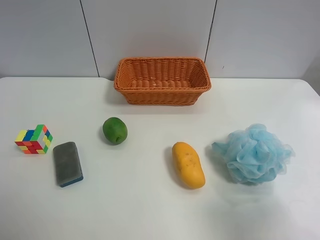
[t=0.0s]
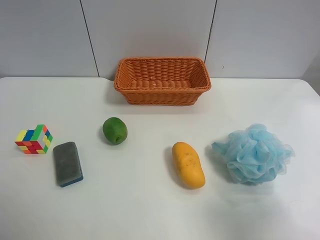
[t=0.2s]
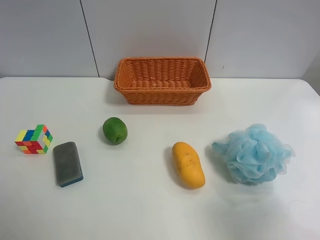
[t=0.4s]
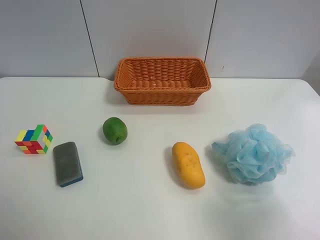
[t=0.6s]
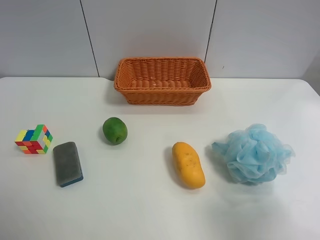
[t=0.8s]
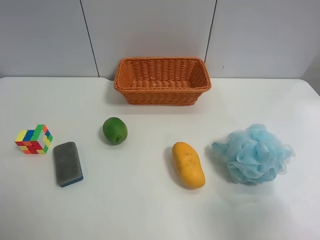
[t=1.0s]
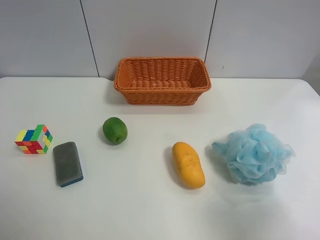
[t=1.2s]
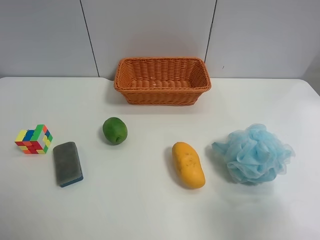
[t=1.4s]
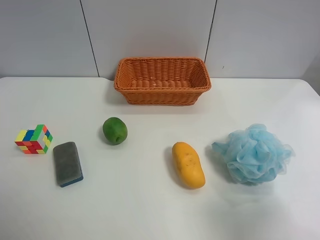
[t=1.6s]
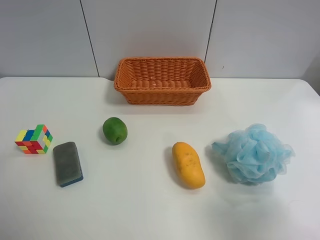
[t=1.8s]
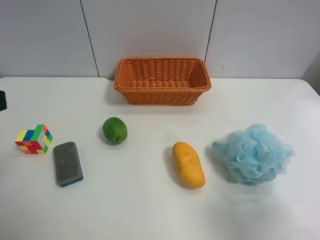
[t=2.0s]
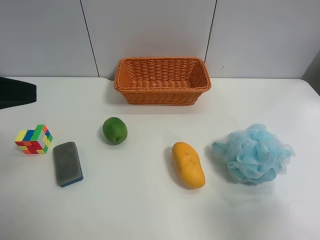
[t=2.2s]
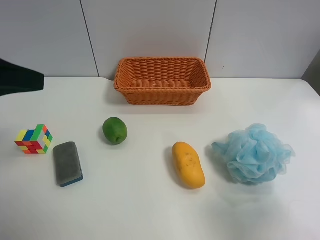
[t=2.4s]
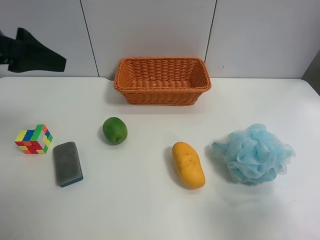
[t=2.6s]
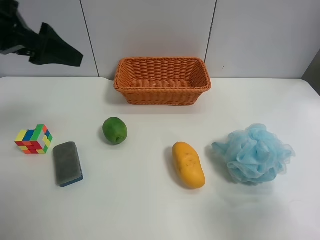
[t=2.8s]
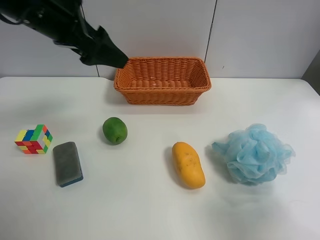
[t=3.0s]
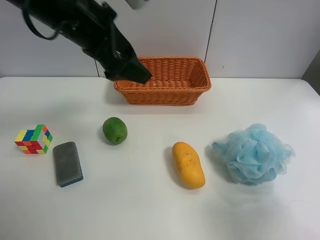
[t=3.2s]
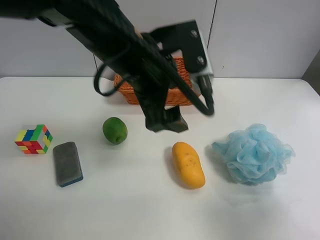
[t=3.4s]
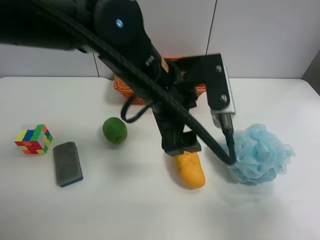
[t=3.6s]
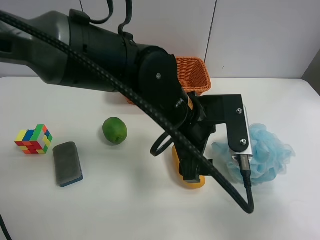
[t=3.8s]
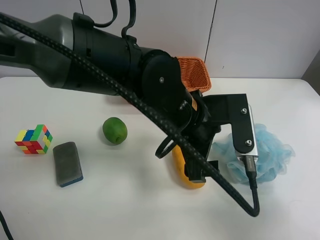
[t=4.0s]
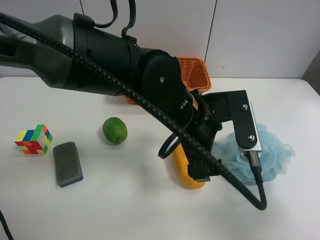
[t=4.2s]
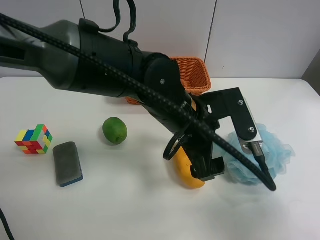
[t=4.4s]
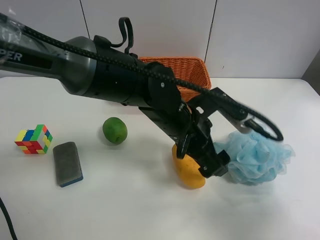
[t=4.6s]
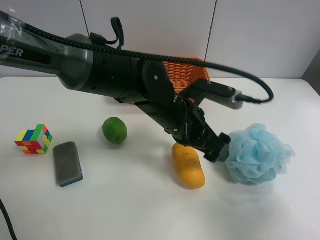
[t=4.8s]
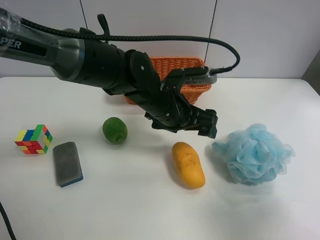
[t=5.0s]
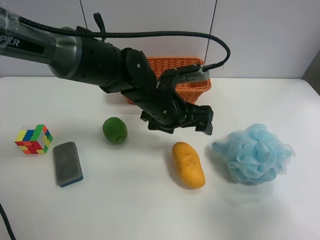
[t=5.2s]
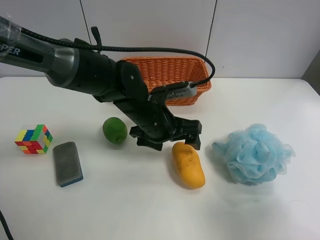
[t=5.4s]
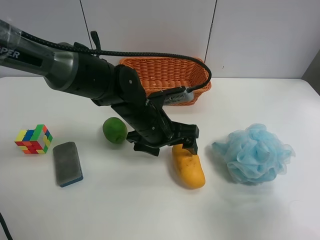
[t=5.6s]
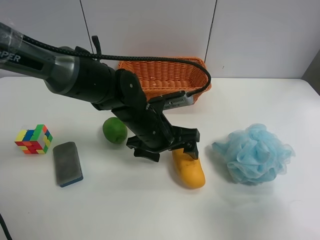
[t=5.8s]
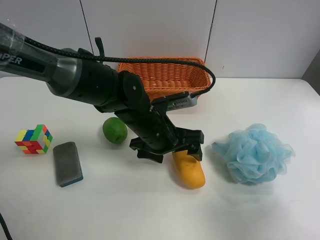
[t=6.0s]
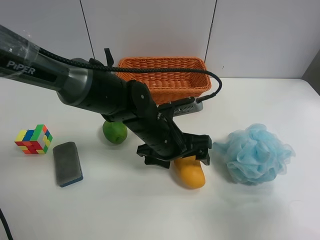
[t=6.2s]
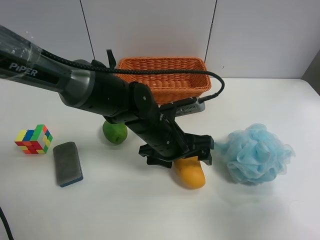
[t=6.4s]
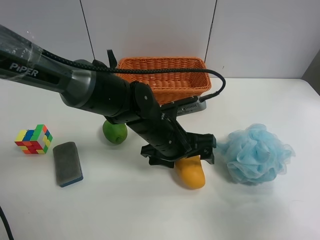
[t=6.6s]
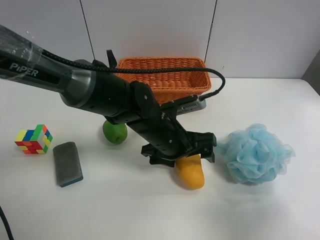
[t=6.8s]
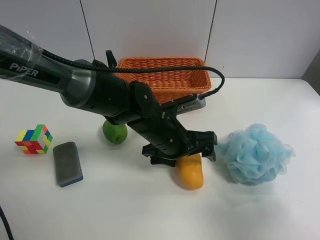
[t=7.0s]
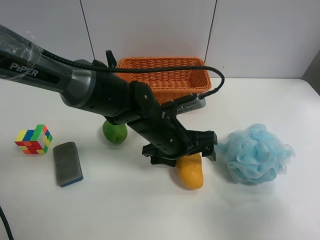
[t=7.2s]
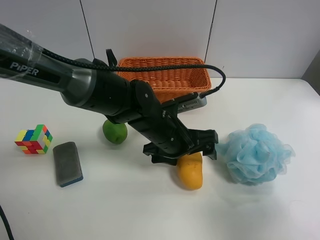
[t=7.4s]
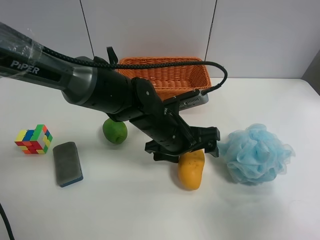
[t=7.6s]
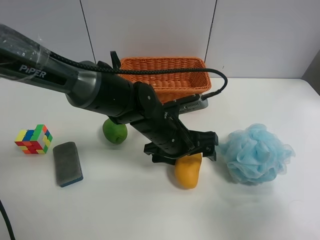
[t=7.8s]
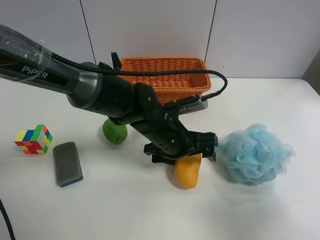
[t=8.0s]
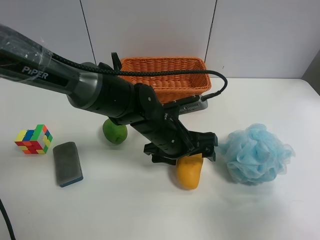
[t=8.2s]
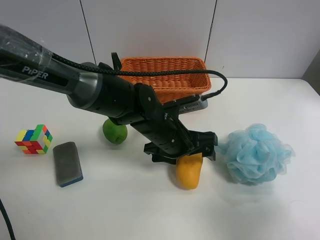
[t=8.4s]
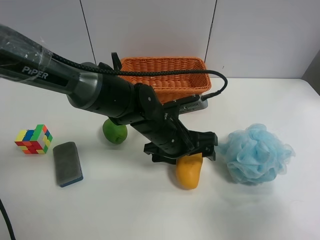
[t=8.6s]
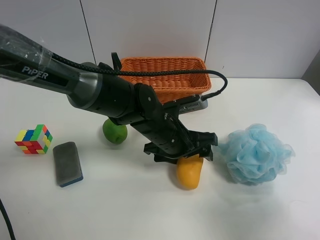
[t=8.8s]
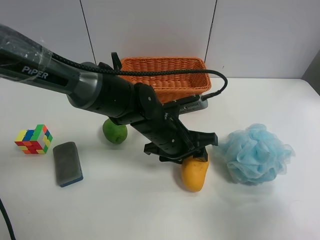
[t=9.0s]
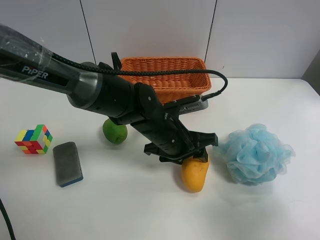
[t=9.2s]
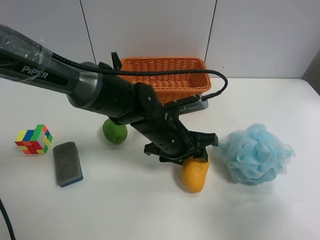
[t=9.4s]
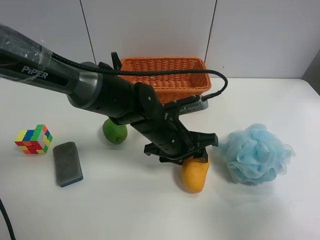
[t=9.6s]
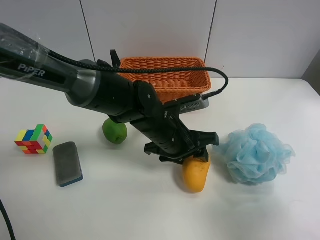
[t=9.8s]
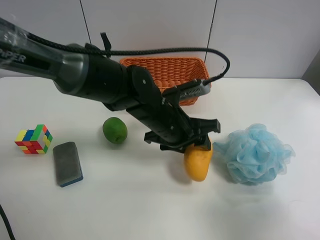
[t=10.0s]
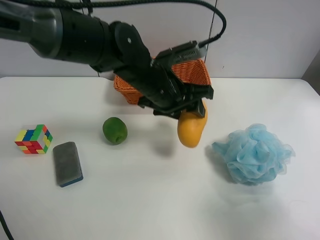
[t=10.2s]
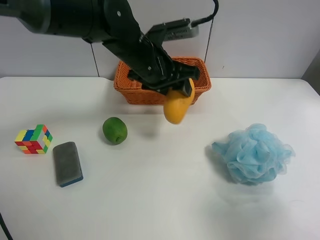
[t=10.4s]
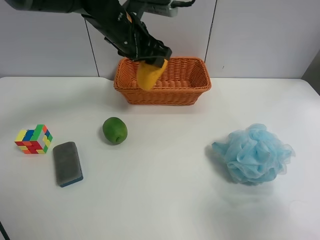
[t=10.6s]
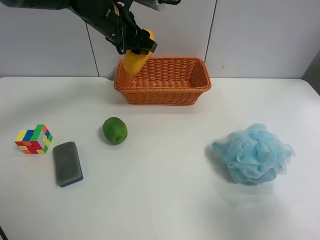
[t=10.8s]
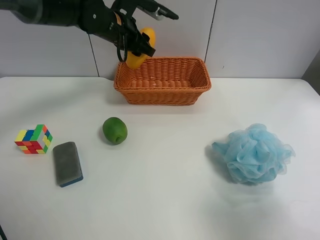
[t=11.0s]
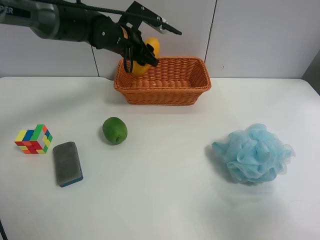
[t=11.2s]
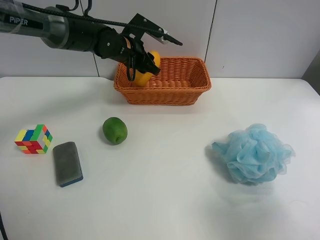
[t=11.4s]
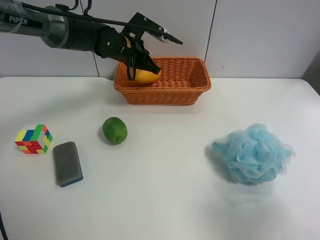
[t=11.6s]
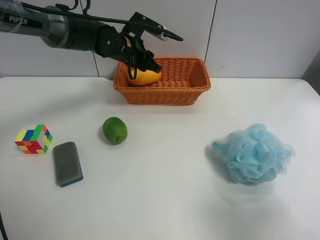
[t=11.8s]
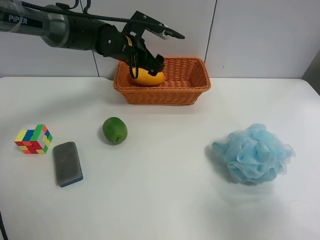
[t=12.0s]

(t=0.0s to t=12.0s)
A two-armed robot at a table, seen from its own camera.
Task of the whole recording: Randomly grab green lemon or mangoes from the table and put them in a basket.
Step, t=0.0s - t=9.0s: Grasp the mango with the left gripper.
t=1.6s - t=3.0s: The left gripper travels forward and to the right by approximately 25 cm.
t=3.0s - t=4.4s: The left gripper moves to the right and downward, some 25 cm.
t=4.4s - t=6.0s: The left gripper goes approximately 10 cm downward and to the left.
t=6.0s - t=7.6s: The grippers stay close to where they were, moving slightly.
t=7.6s - t=9.0s: The left gripper closes up.
t=9.0s - t=10.4s: The left gripper moves upward and forward, approximately 15 cm.
t=10.4s - t=12.0s: The left gripper is displaced forward by roughly 10 cm, and opens up.

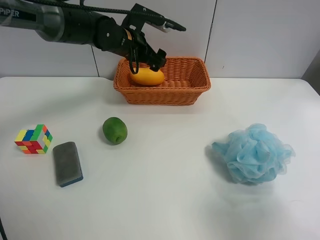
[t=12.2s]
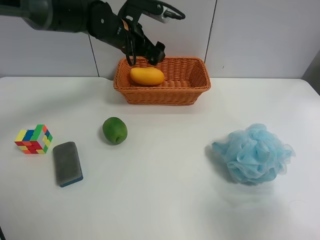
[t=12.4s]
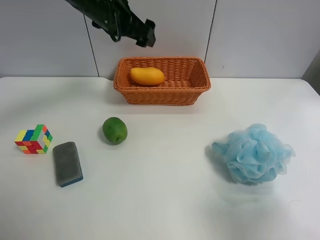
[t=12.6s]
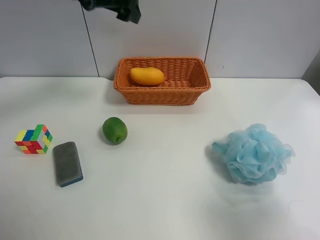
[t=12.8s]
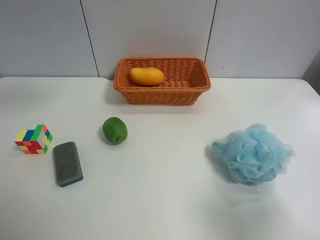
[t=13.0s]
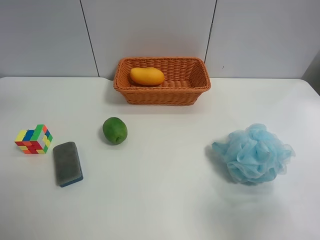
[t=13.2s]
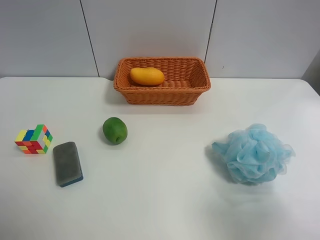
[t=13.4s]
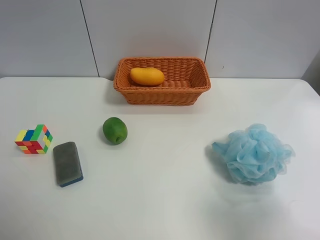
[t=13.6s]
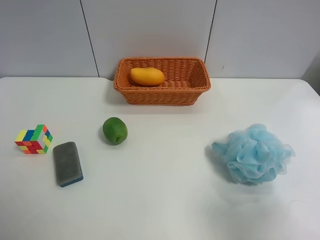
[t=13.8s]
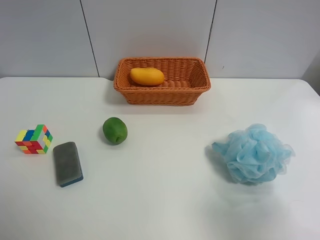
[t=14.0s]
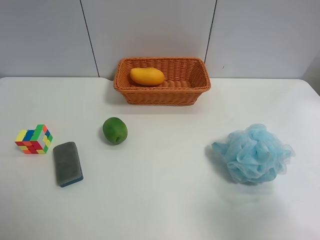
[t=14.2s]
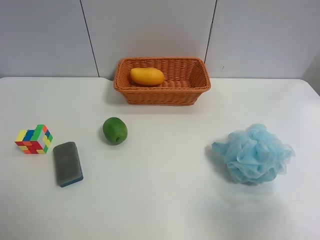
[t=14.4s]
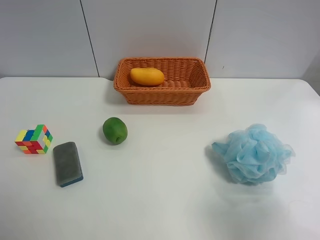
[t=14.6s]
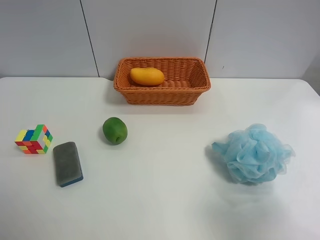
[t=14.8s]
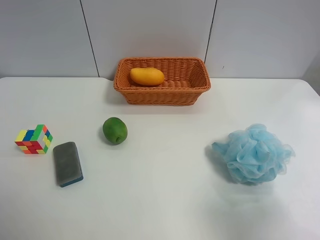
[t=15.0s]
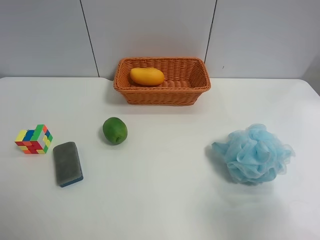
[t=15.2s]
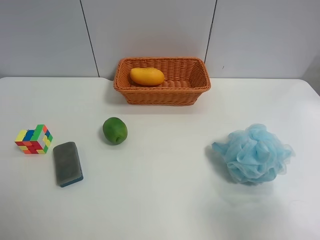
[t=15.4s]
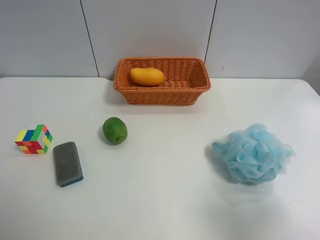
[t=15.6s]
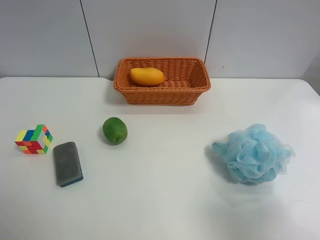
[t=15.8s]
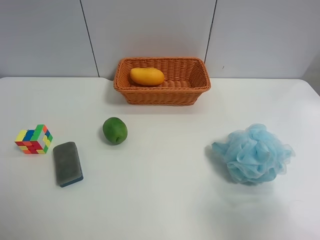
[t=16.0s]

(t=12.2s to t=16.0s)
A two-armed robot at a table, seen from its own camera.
Task of the whole recording: Randomly grab green lemon or mangoes from the table and put them in a basket.
t=12.2s - t=13.4s: The left gripper moves backward, upward and to the left, some 40 cm.
t=14.8s - t=16.0s: The two grippers keep their place.
